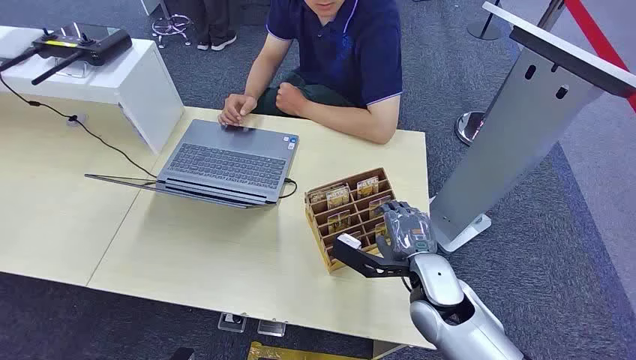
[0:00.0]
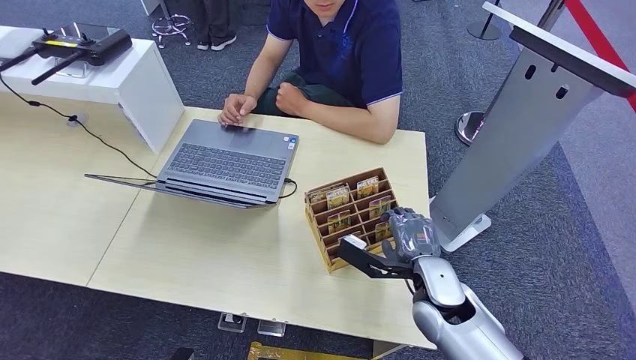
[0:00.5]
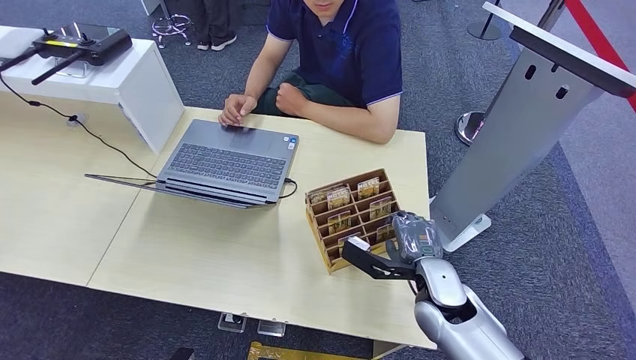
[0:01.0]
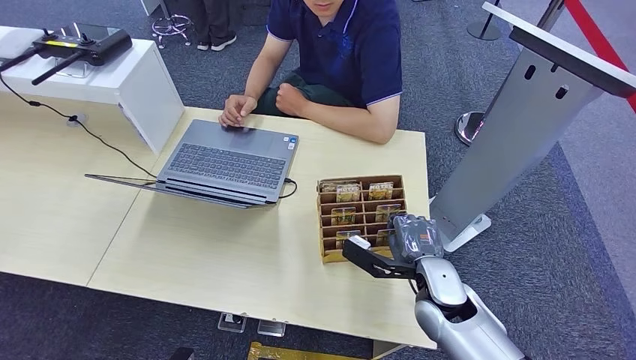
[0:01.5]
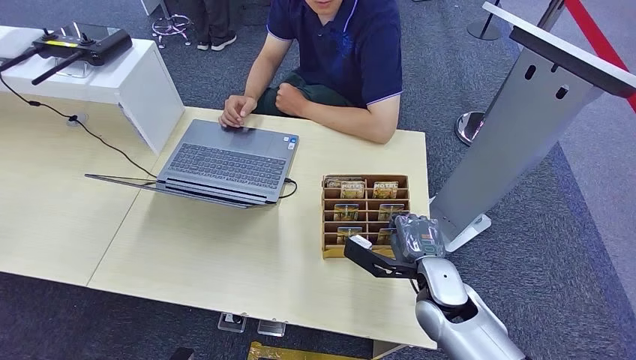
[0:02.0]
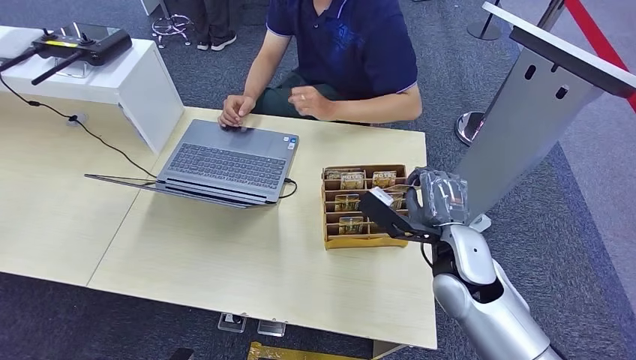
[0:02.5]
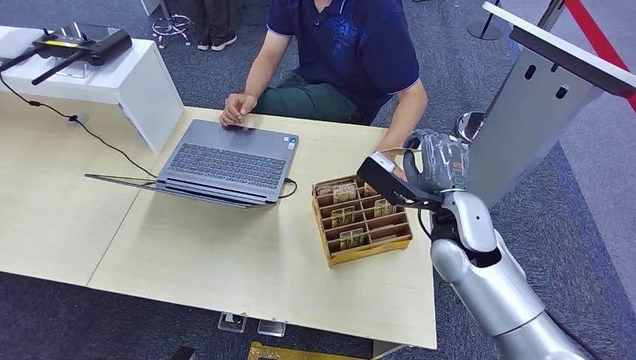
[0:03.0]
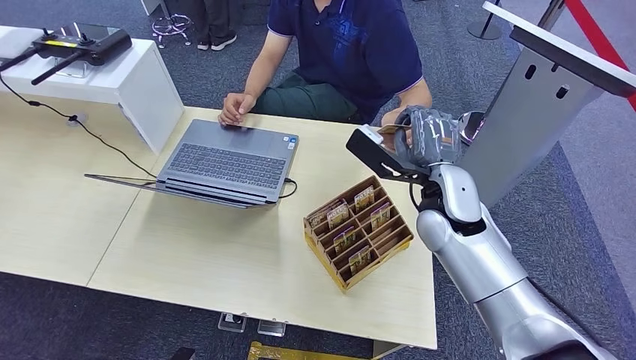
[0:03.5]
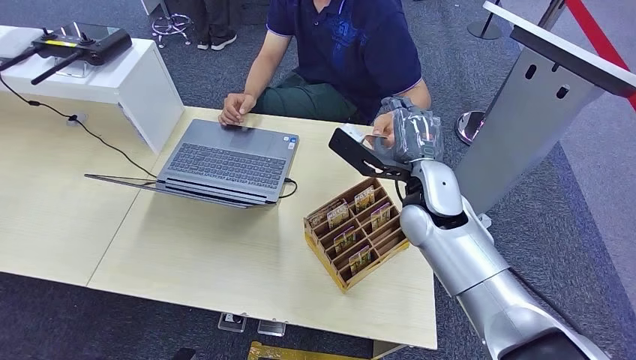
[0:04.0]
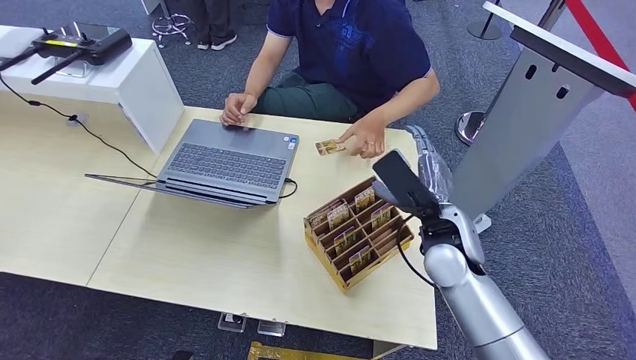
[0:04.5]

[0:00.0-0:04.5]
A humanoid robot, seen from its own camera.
Task of the whole recording: Pick up the card and hand it over to the target person.
Step, 0:00.0 to 0:02.5: Pick up the key card from the card box.
Step, 0:03.0 to 0:04.5: Hand the key card to the target.
0:02.0 to 0:04.5: The right hand heads upward and to the right, covering some 10 cm, and reaches approximately 10 cm forward, then returns.
